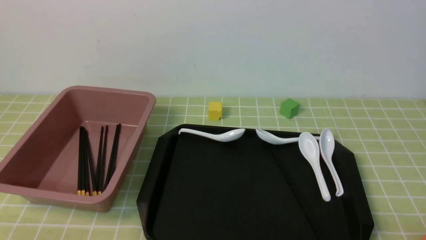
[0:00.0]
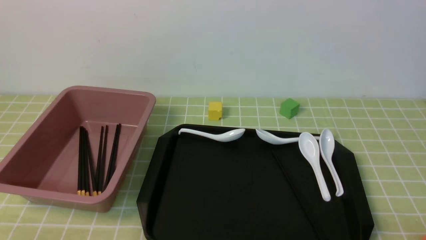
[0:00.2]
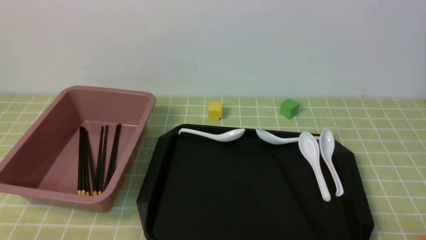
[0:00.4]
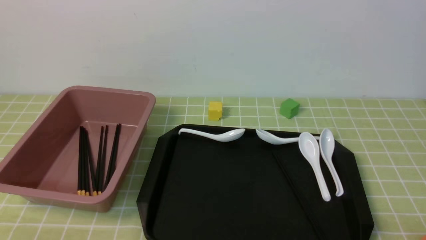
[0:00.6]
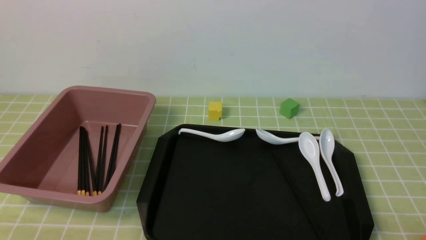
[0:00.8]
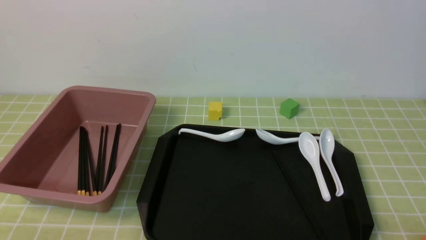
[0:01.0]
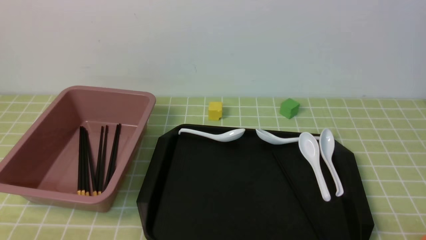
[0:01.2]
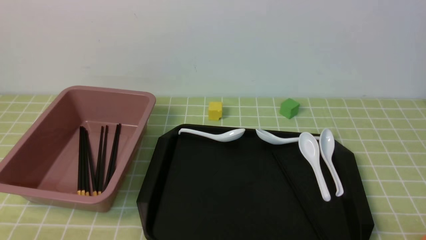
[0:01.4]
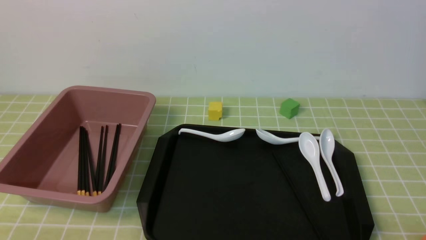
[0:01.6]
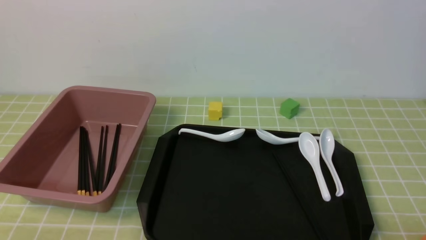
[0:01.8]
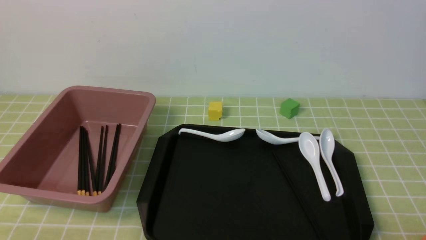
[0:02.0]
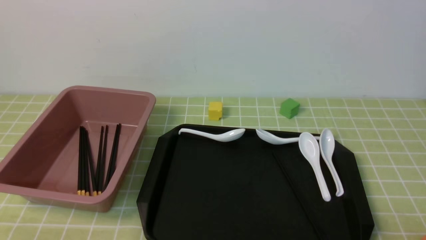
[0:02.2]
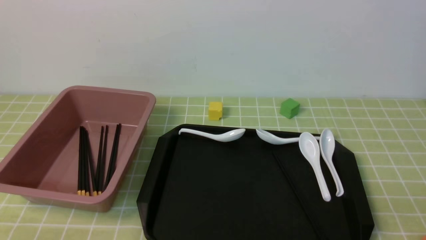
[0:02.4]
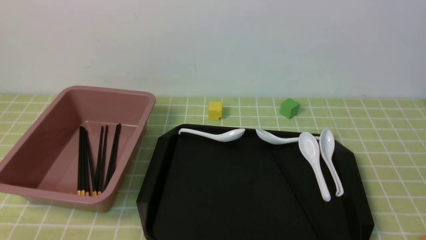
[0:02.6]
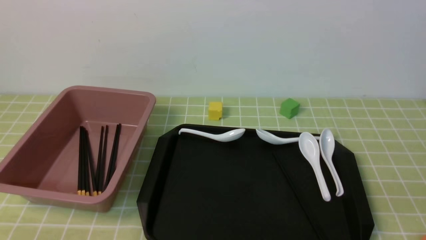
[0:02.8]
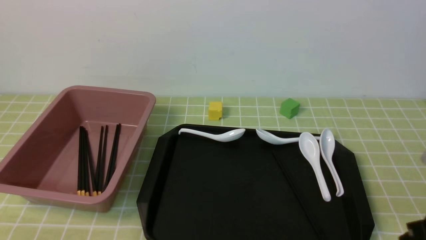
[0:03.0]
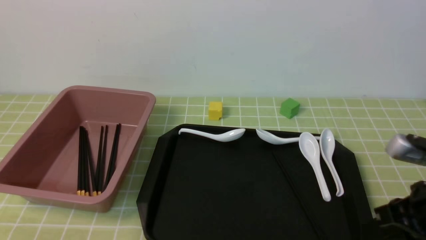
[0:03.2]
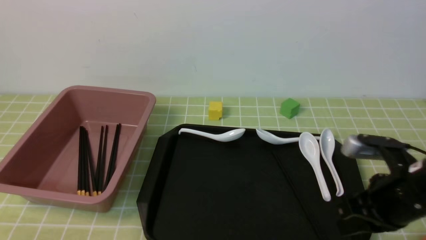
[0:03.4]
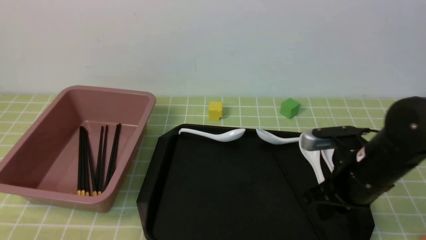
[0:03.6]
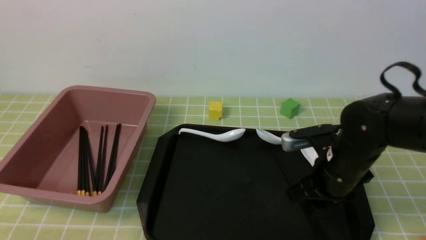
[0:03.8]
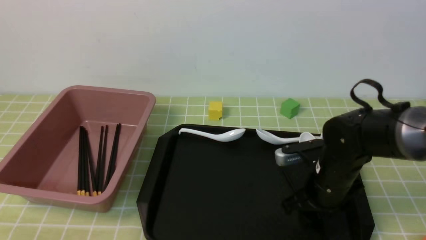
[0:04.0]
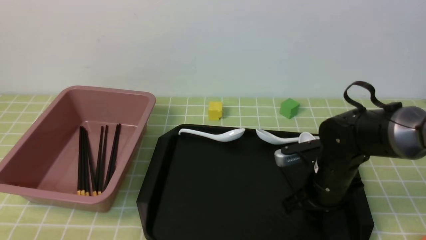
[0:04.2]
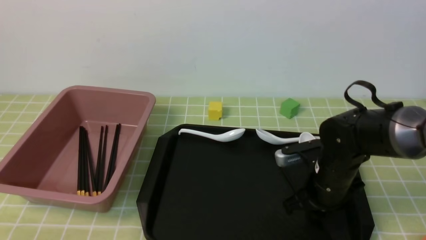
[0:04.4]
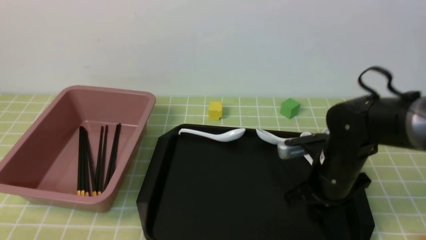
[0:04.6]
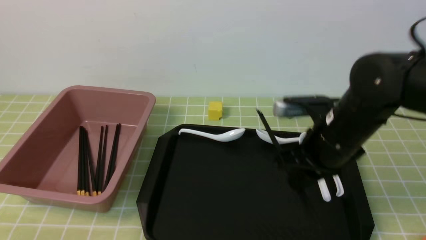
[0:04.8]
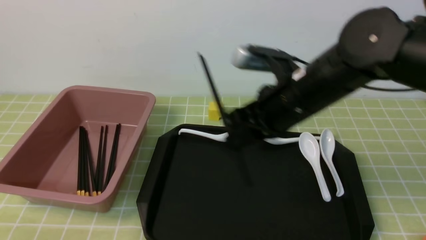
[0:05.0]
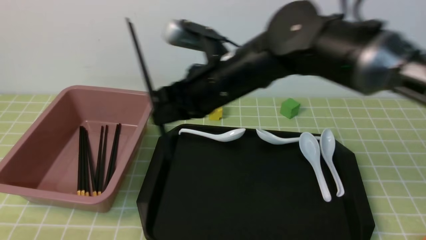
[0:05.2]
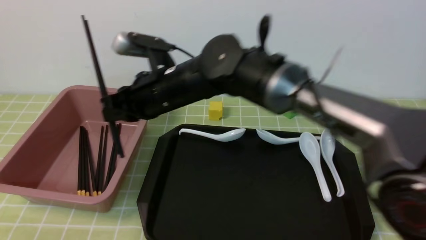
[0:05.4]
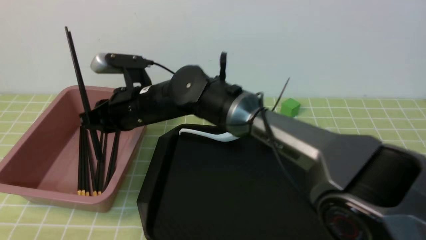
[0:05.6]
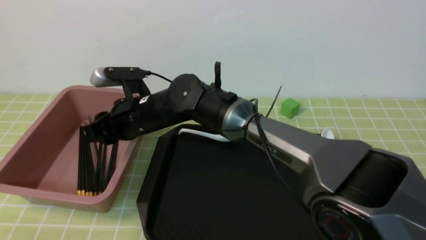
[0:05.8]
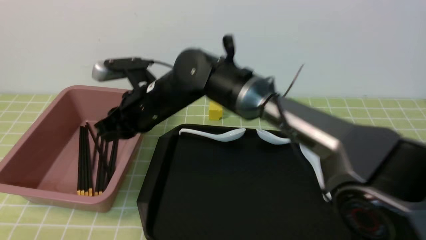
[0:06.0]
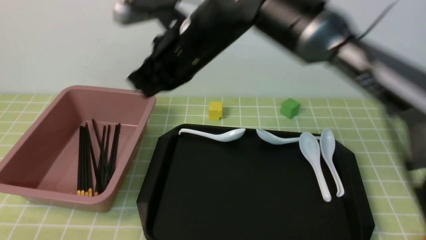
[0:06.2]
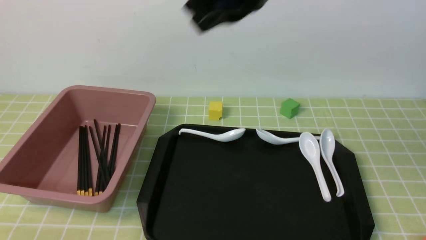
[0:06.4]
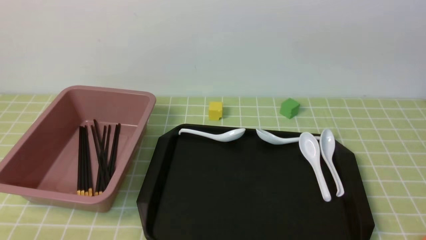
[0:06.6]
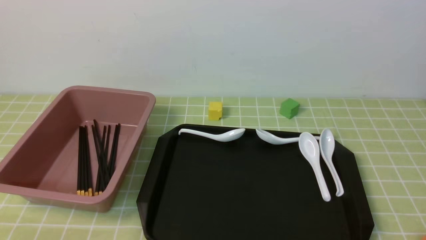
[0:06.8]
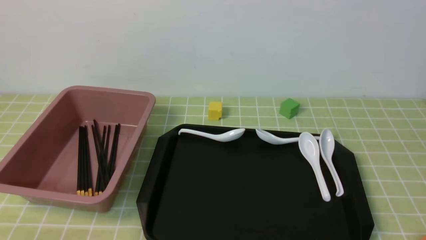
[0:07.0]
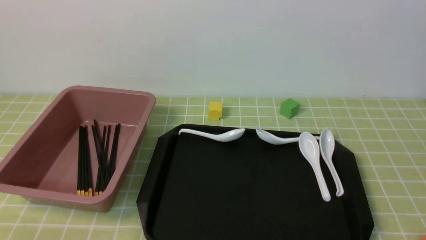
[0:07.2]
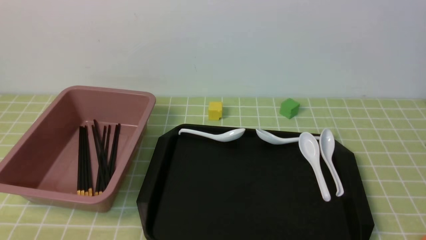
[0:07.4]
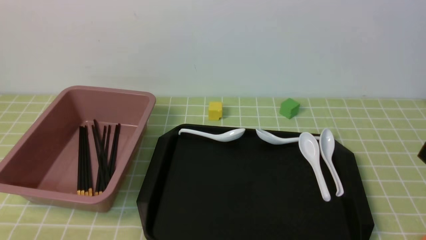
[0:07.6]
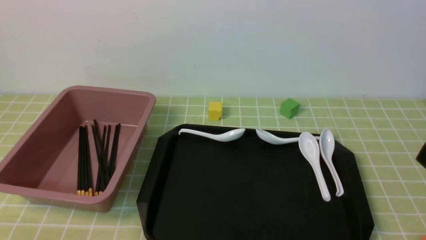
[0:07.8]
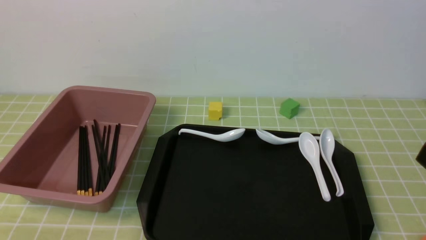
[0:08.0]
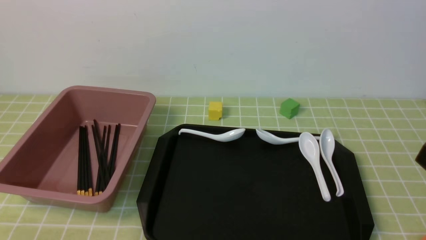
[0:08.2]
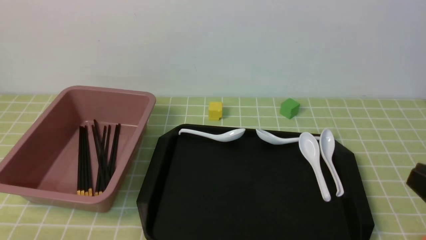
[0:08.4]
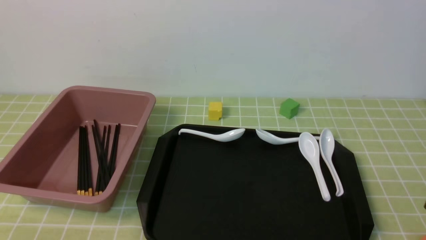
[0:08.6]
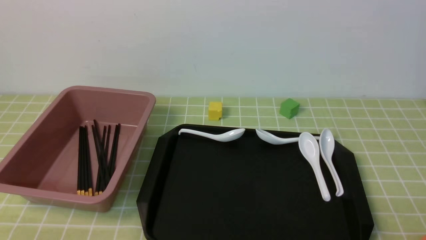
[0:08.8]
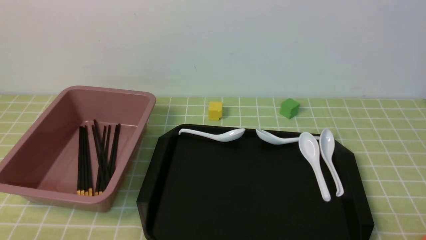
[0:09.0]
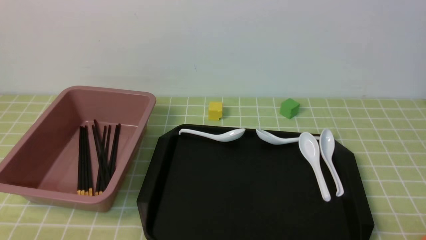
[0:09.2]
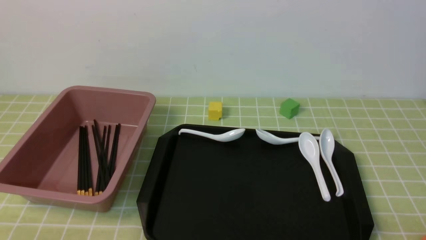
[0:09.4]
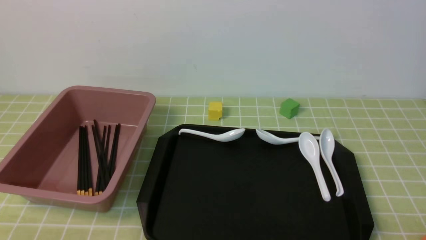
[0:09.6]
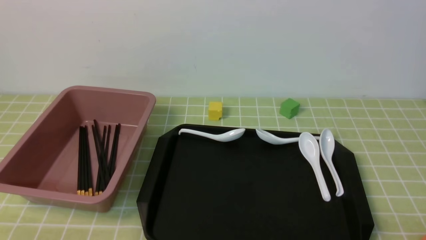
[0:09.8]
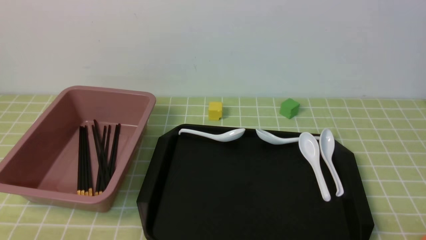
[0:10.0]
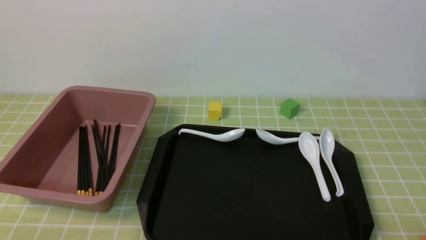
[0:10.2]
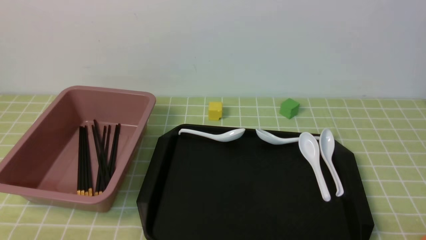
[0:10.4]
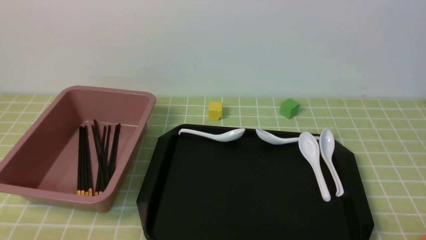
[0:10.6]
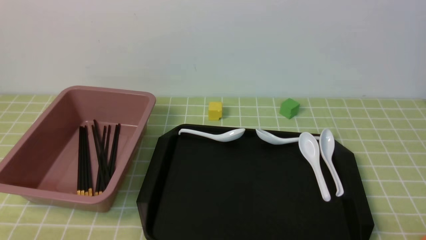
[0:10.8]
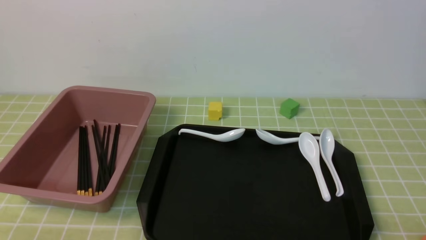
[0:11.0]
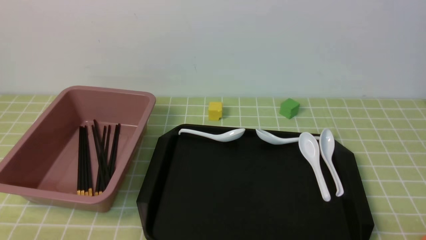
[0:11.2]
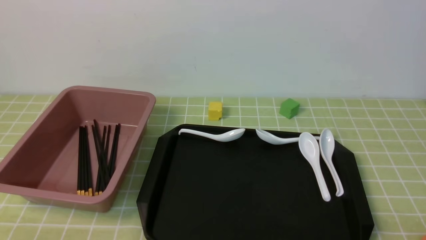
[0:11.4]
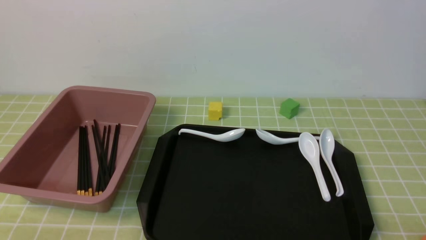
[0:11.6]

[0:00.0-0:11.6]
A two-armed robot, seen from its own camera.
Step, 0:00.0 to 0:04.8: use the right arm to grab a pair of chopsticks.
Step, 0:05.0 to 0:06.0: use the right arm to put the chopsticks into the lunch box.
0:00.0 to 0:01.4: Neither gripper changes place.
0:02.8 to 0:04.4: The right gripper is displaced forward, downward and to the left by some 25 cm, and opens its fingers.
0:04.4 to 0:05.8: The right gripper moves to the left, about 25 cm.
0:05.8 to 0:07.2: The right gripper shifts roughly 50 cm to the right, backward and upward, and closes up.
0:10.2 to 0:11.6: Neither gripper changes place.
